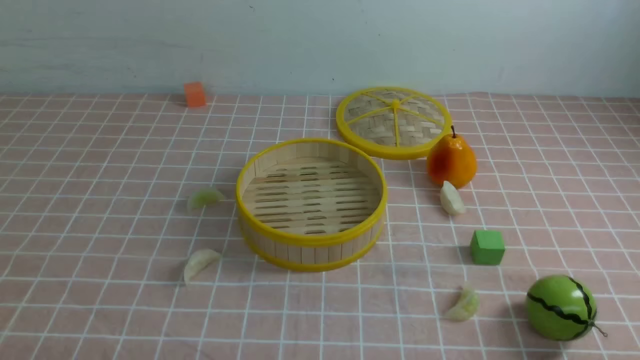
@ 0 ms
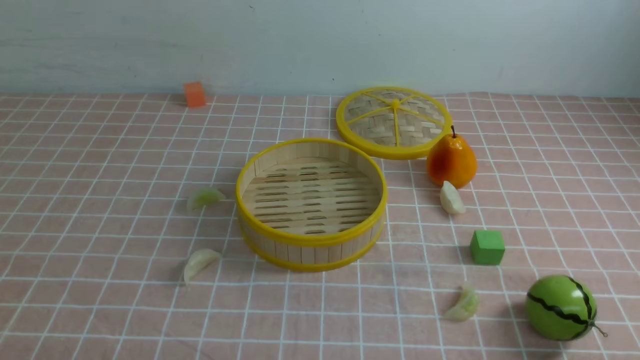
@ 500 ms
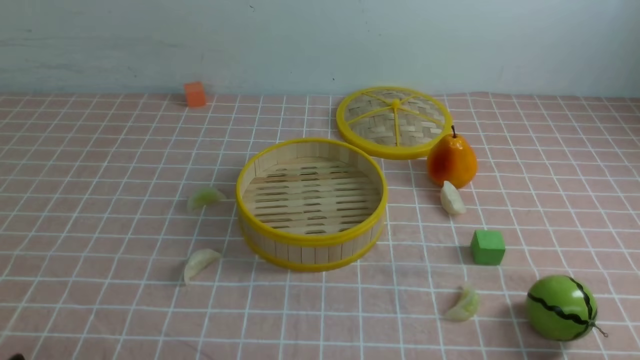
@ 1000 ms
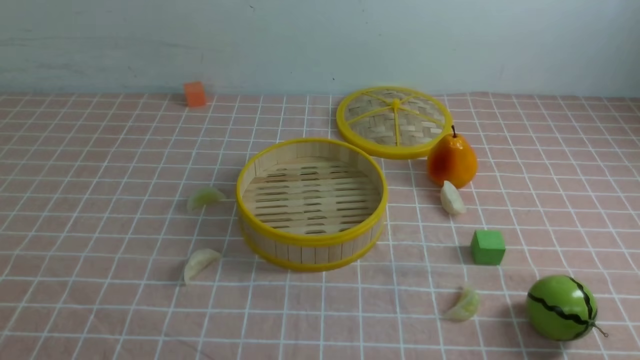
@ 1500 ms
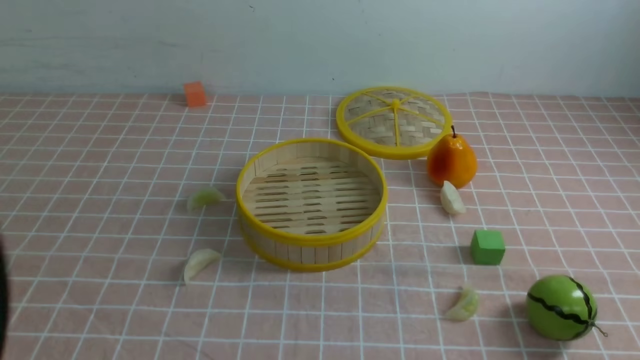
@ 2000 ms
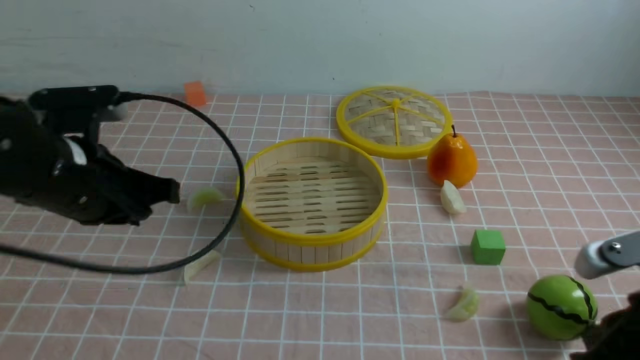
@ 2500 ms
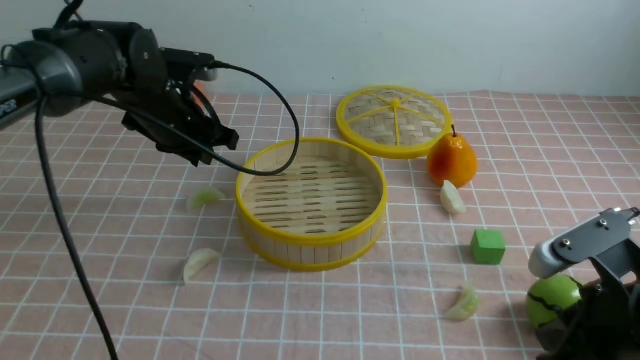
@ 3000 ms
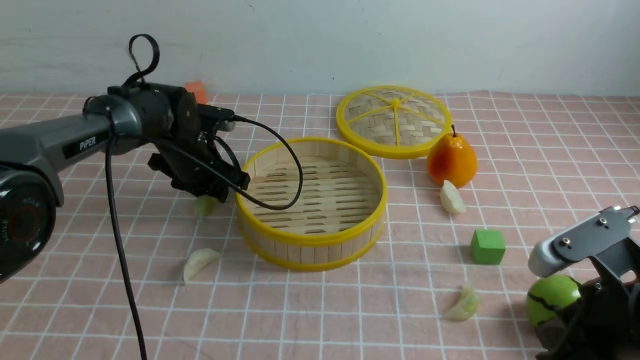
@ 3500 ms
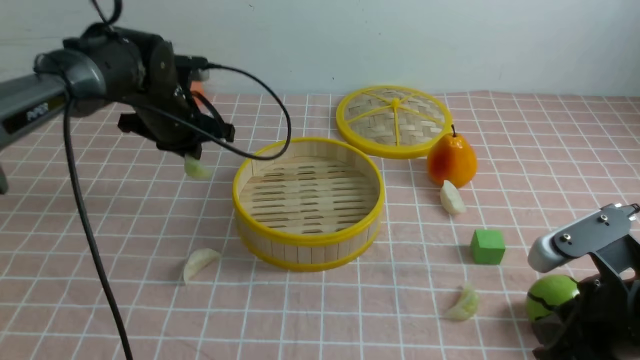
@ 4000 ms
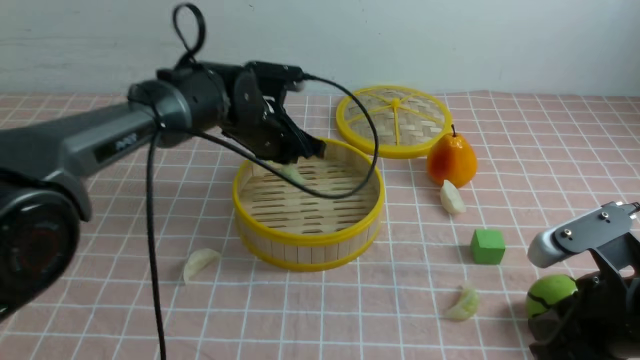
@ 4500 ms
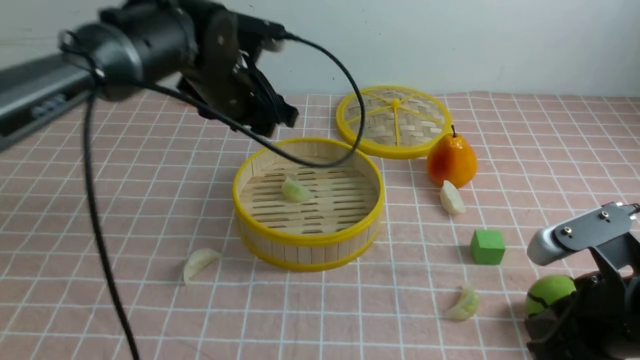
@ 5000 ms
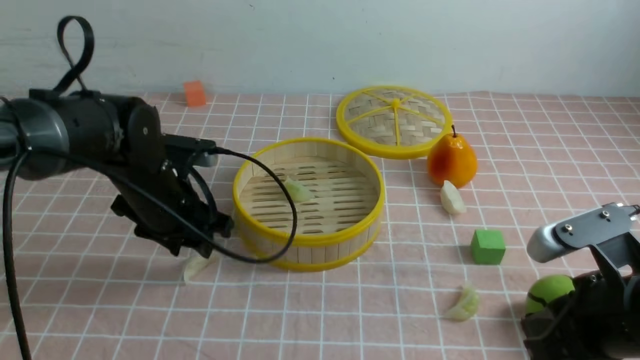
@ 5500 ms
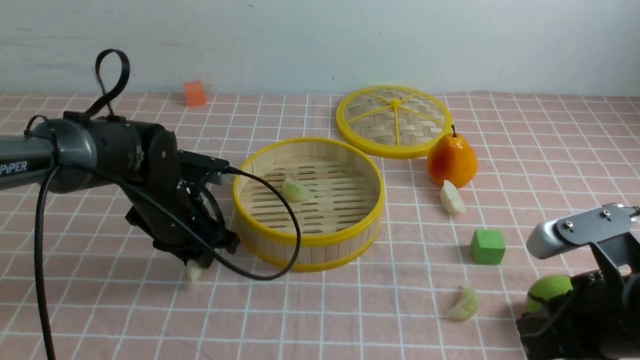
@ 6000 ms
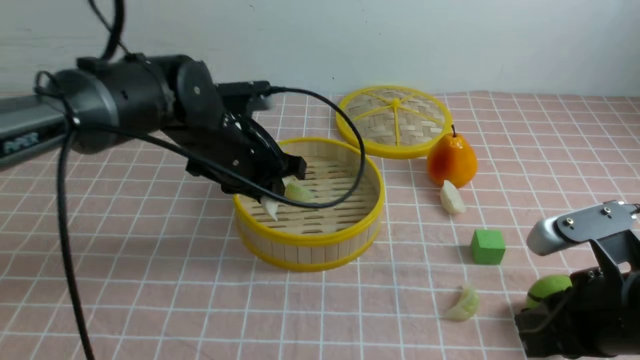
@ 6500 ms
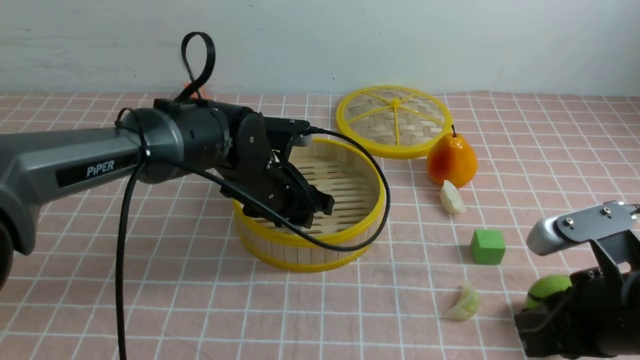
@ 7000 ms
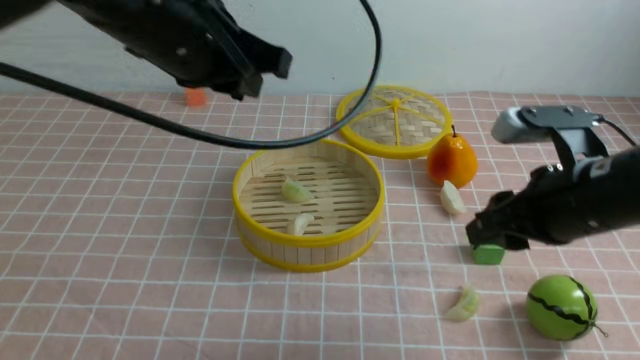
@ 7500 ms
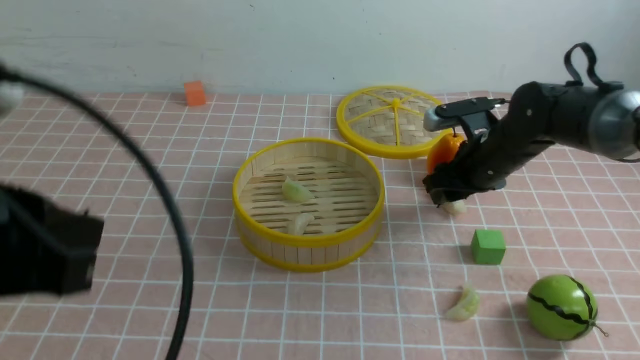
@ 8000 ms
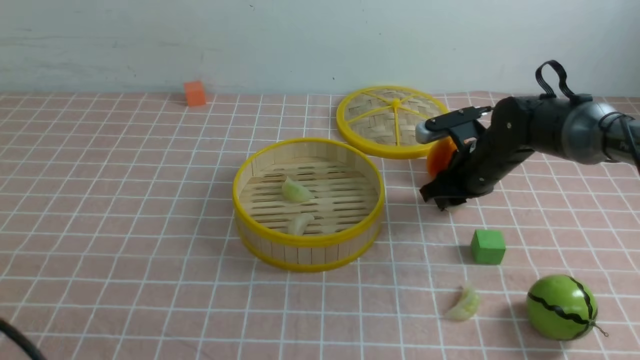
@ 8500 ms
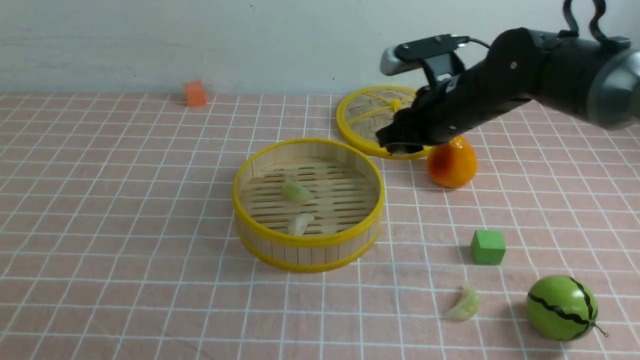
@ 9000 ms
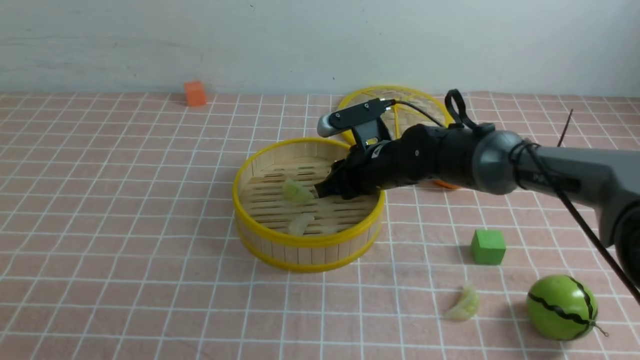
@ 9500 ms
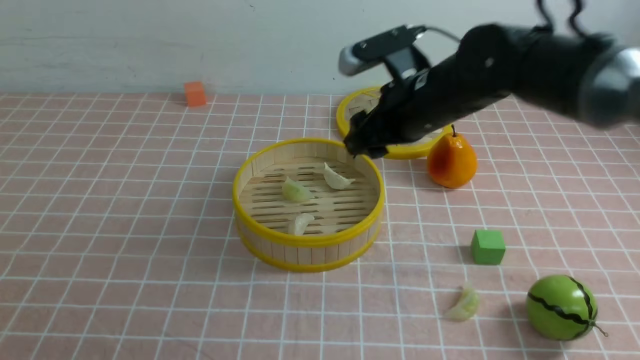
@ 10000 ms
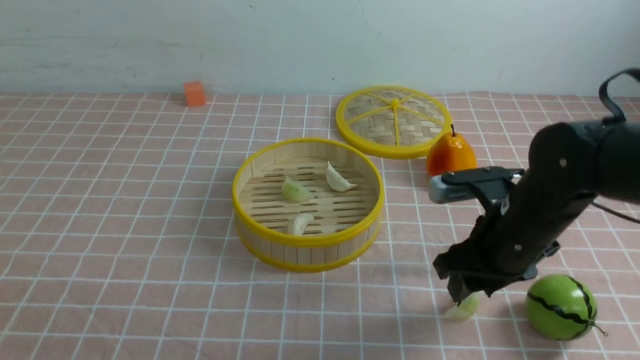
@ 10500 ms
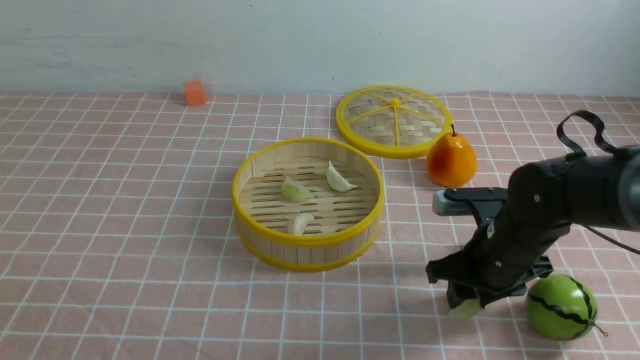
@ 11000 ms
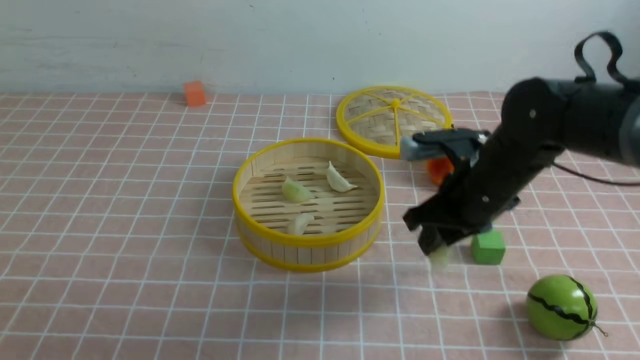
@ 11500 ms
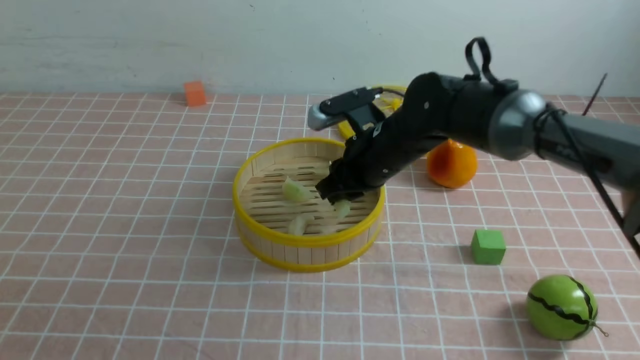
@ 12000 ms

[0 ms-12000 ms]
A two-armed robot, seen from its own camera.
Task of the whole recording: put the dumplings into the steamer on the table with the pink tablecloth.
Step, 0 ms to 3500 ms: use the left arm to grab a dumpling.
Step, 5000 ms to 6000 ms: use the left arm to grab a dumpling.
Step, 6500 ms to 7000 ms: use the left arm to put the dumpling into the steamer.
Step, 7500 ms to 8500 ms: use the right arm to grab a dumpling.
Step, 9000 ms to 9500 ms: use the right arm to put the dumpling into the steamer.
Step, 10000 ms to 11000 ms: use the right arm to grab a dumpling.
2000 ms to 4000 ms: The right gripper is displaced forward, downward and to the left by some 15 cm; the left gripper heads forward, covering roughly 35 cm, and opens and closes again.
4000 ms to 6000 ms: The left gripper heads backward, covering roughly 10 cm, and opens up.
6000 ms to 8000 ms: The left gripper is displaced backward and upward by roughly 30 cm, and closes its fingers, while the right gripper is displaced forward by about 25 cm, and opens.
8000 ms to 10000 ms: The left gripper shifts roughly 20 cm downward, backward and to the left. The right gripper moves to the left and upward, about 10 cm, and closes and opens again.
10000 ms to 12000 ms: The right gripper travels to the right and back again, approximately 10 cm each way, and closes up.

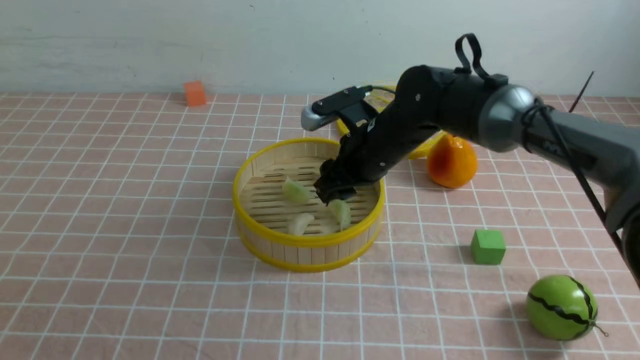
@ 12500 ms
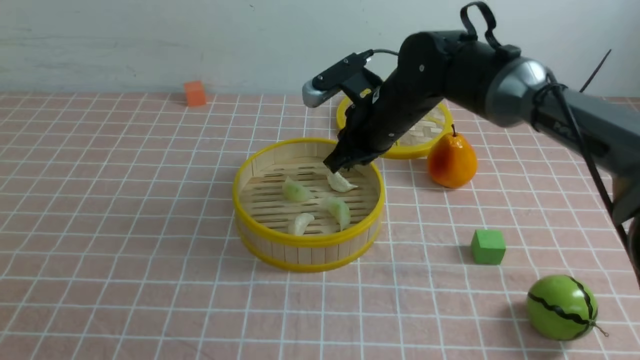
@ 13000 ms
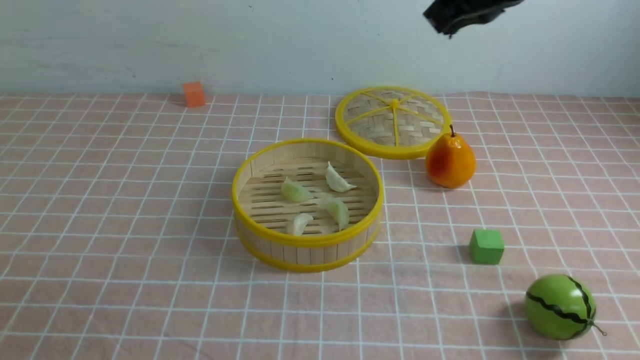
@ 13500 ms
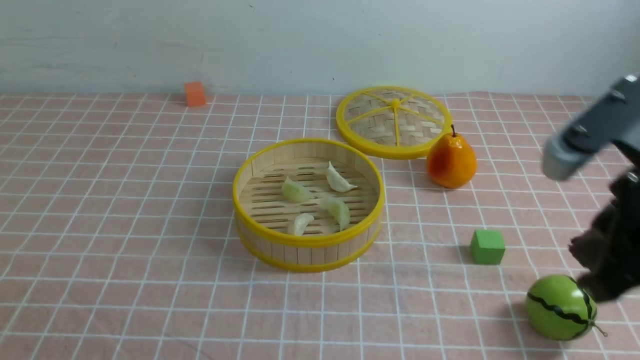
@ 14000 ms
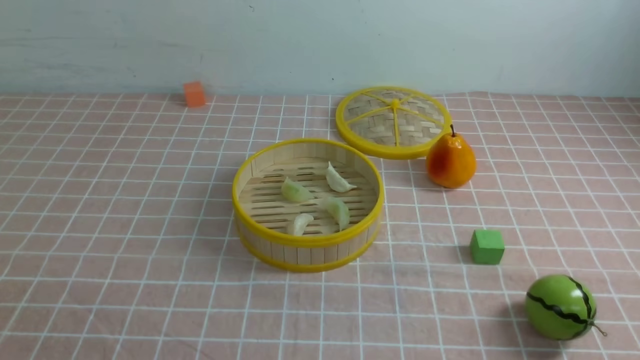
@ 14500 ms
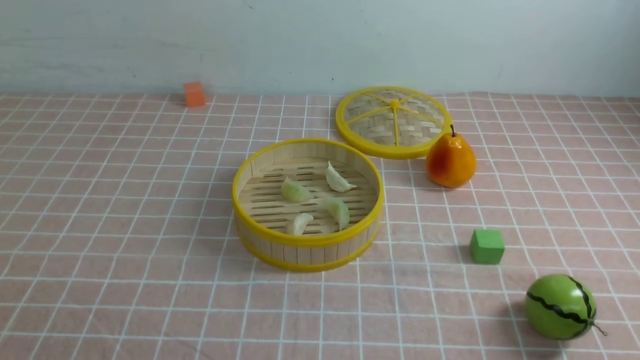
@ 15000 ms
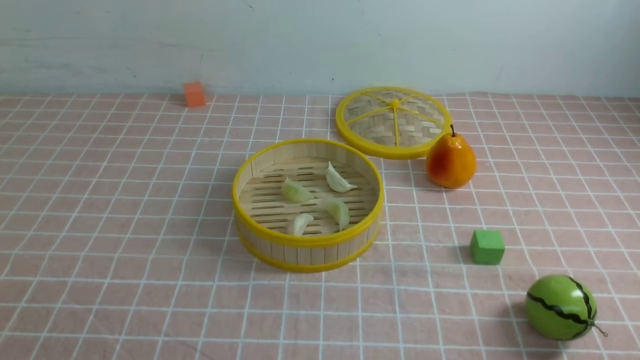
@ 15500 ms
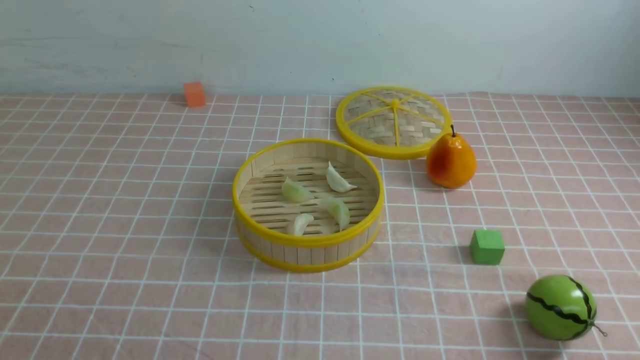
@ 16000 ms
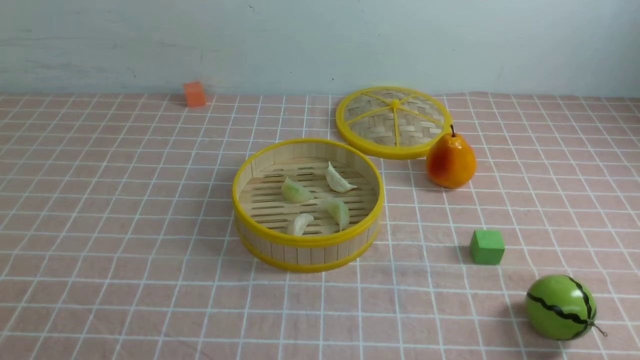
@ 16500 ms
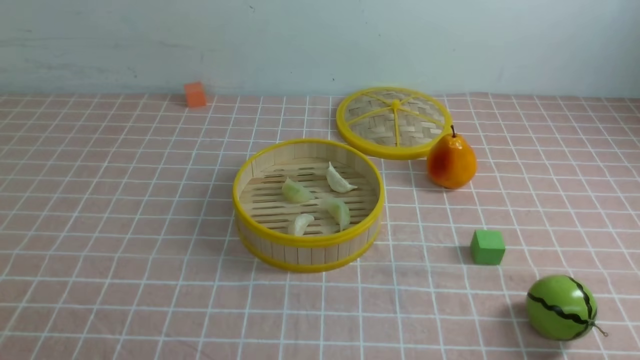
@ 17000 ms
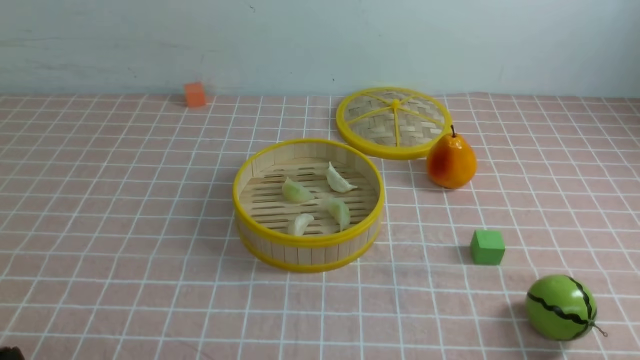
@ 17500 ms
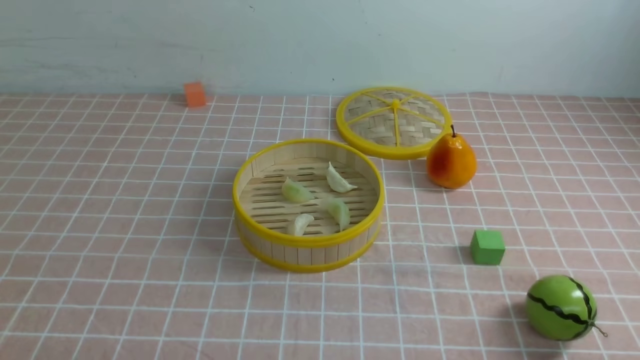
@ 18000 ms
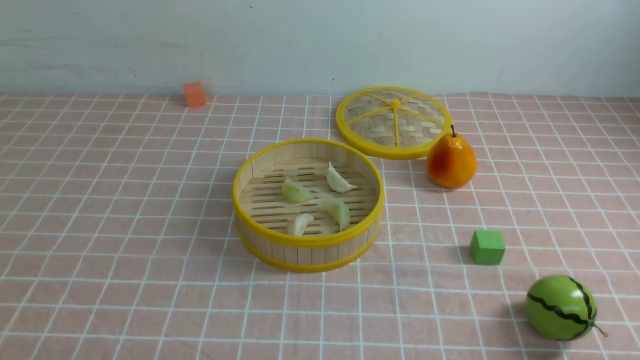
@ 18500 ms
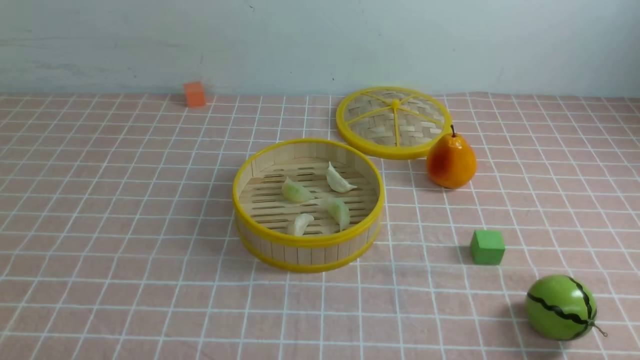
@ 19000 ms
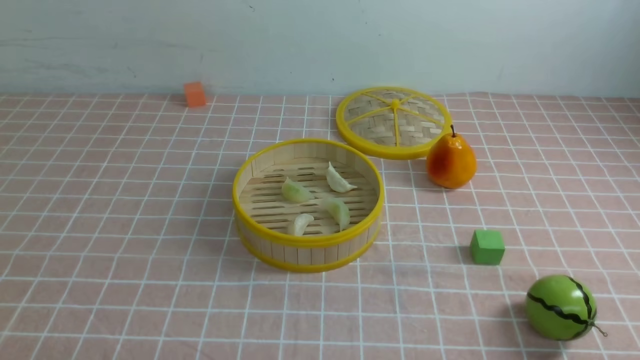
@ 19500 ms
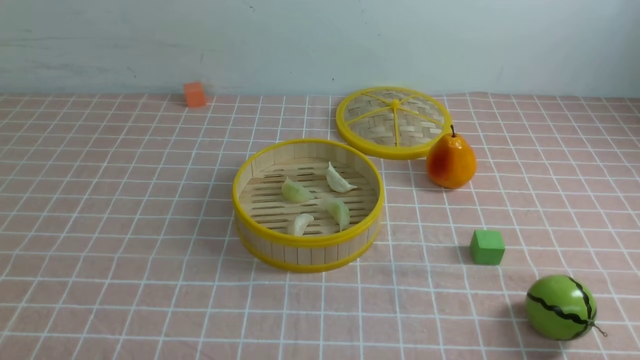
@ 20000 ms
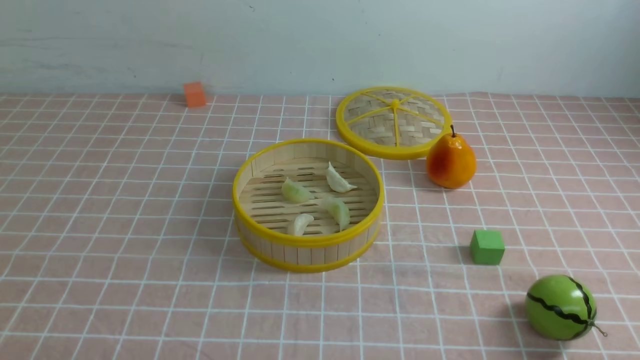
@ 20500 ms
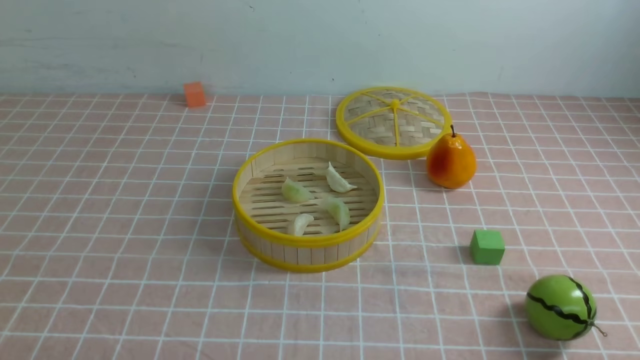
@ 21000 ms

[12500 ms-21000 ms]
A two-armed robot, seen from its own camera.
Task of the whole recording: put the dumplings into the steamer on the table with the pink tablecloth.
12500 ms to 14500 ms: The right gripper is displaced backward and to the right by about 40 cm, and closes its fingers.
19000 ms to 21000 ms: Neither gripper changes place.
